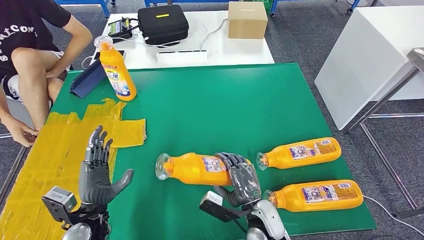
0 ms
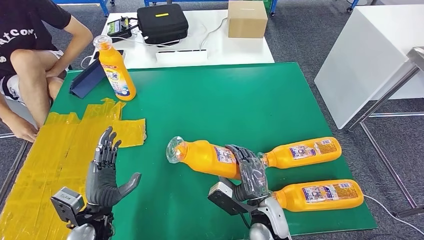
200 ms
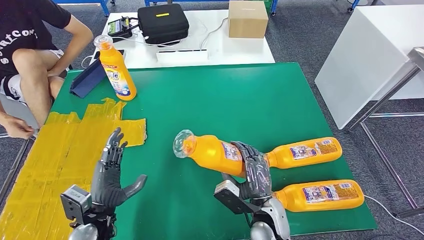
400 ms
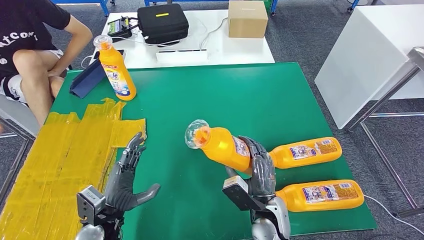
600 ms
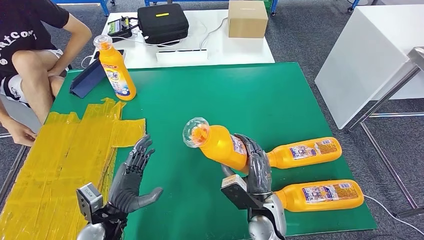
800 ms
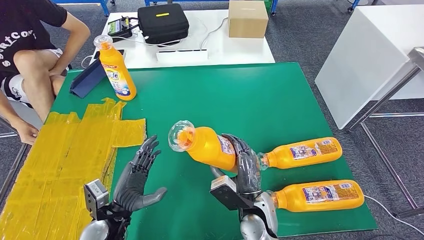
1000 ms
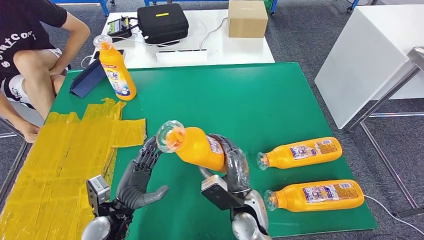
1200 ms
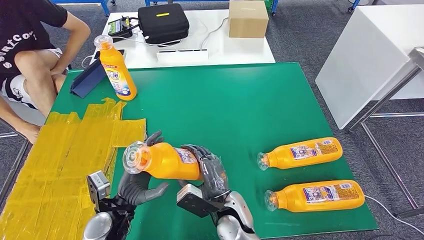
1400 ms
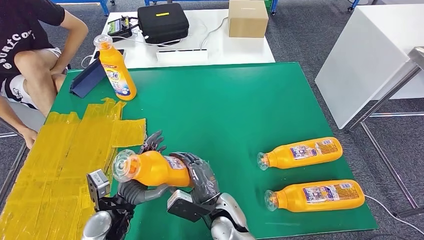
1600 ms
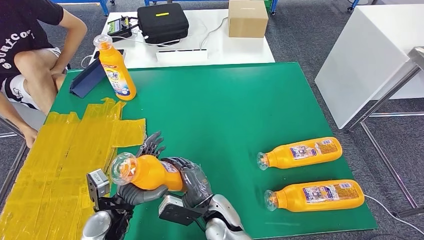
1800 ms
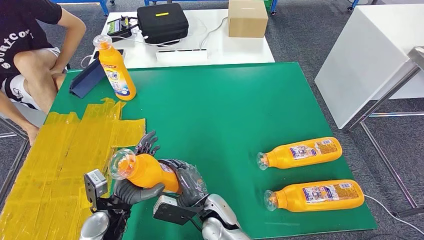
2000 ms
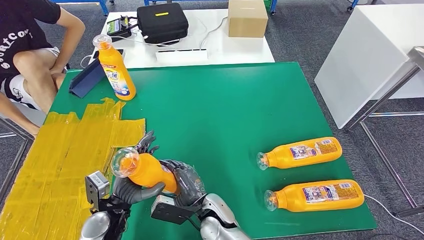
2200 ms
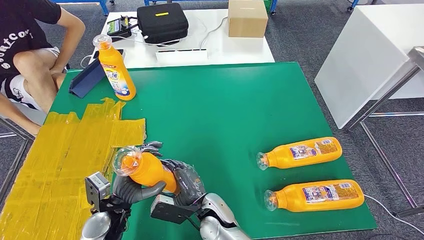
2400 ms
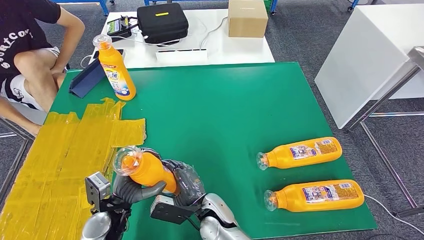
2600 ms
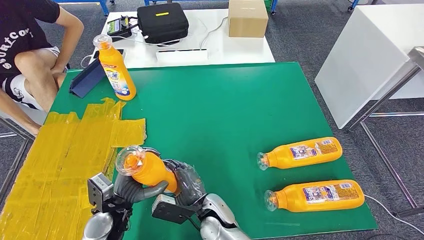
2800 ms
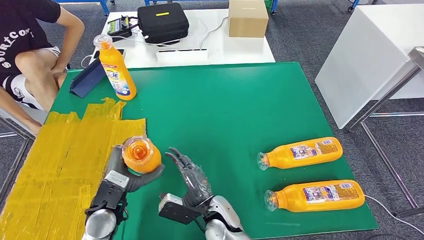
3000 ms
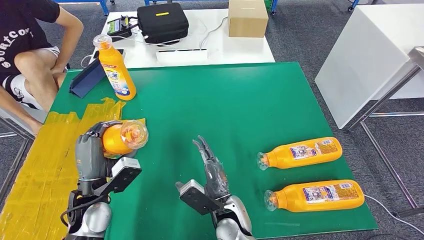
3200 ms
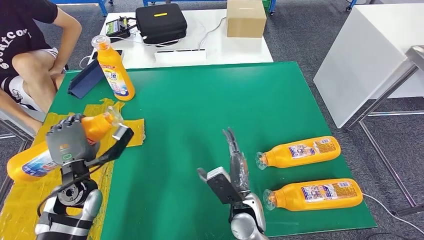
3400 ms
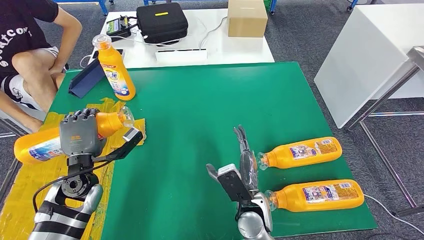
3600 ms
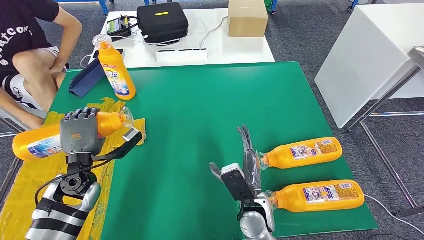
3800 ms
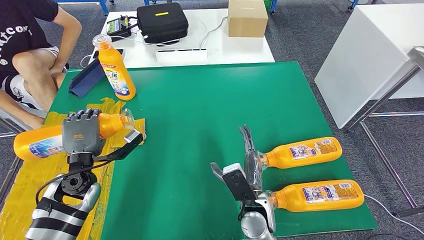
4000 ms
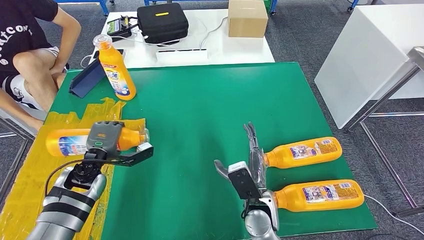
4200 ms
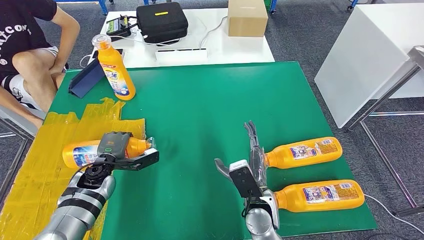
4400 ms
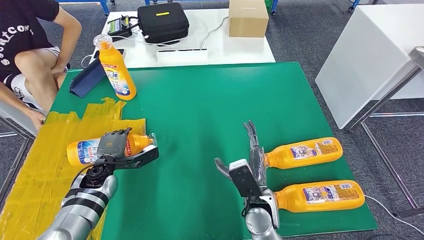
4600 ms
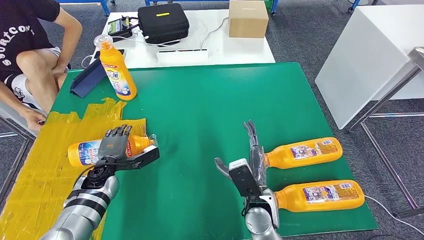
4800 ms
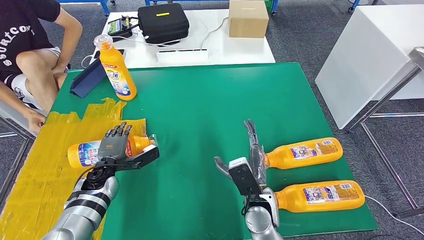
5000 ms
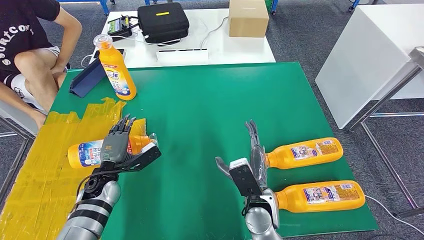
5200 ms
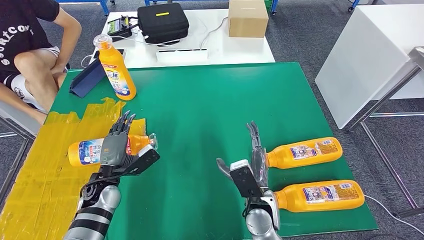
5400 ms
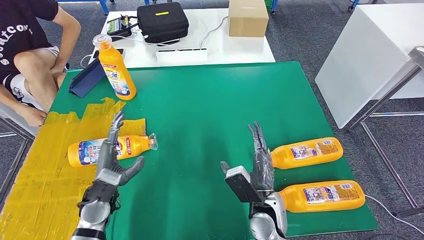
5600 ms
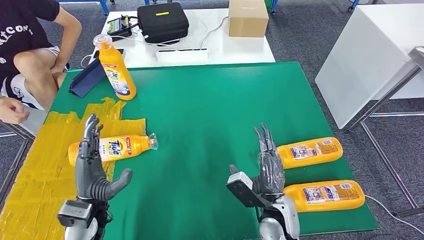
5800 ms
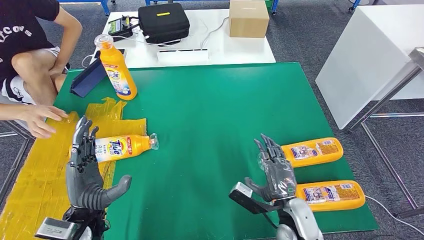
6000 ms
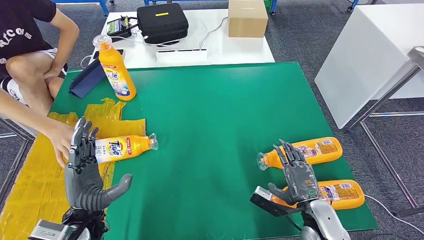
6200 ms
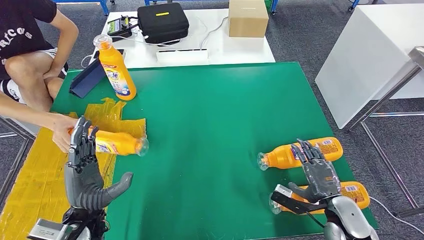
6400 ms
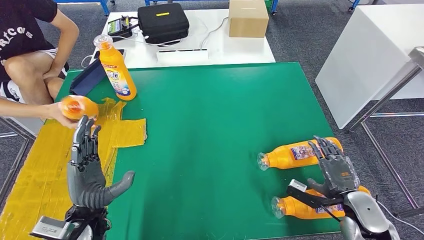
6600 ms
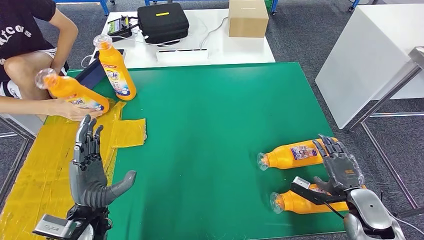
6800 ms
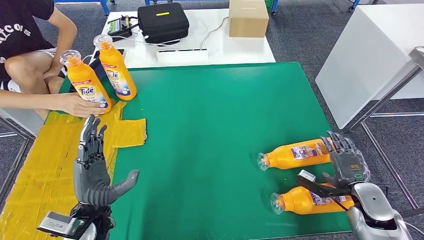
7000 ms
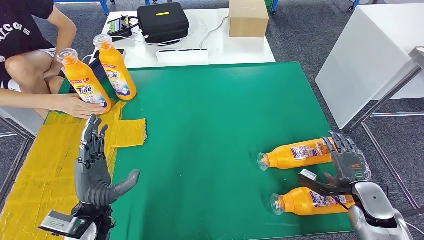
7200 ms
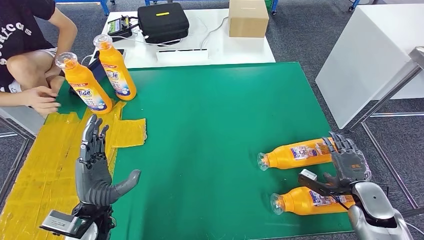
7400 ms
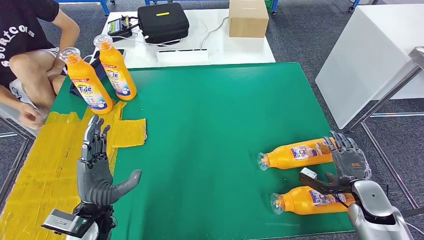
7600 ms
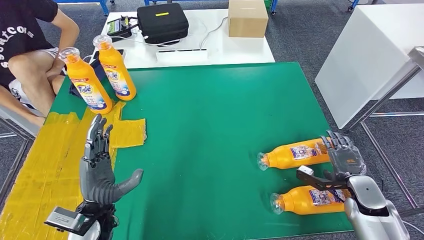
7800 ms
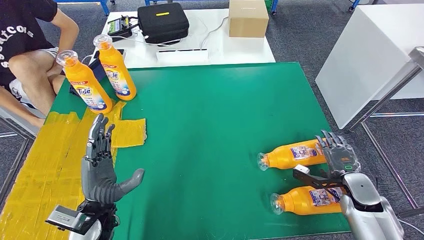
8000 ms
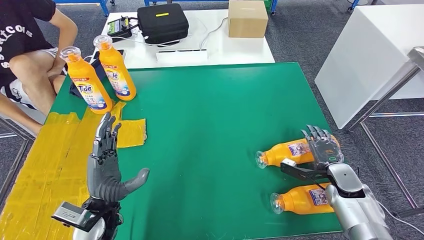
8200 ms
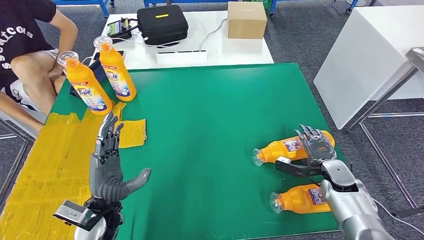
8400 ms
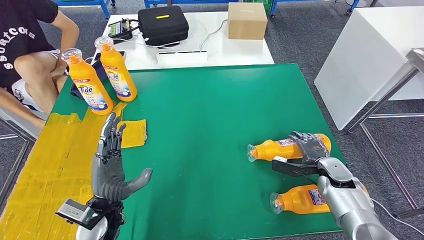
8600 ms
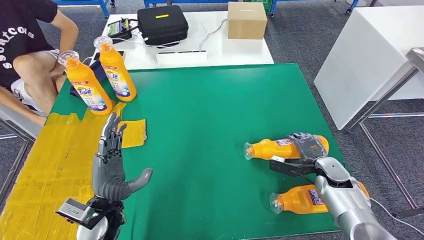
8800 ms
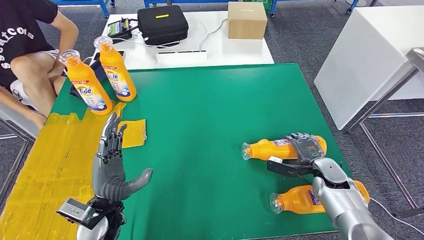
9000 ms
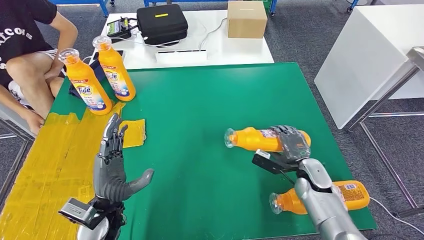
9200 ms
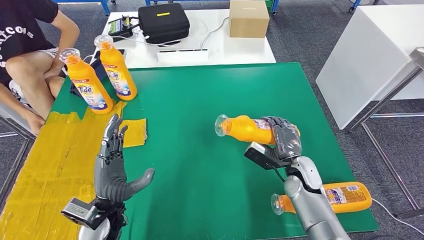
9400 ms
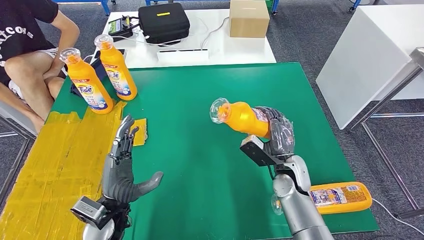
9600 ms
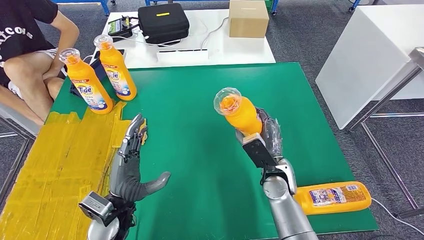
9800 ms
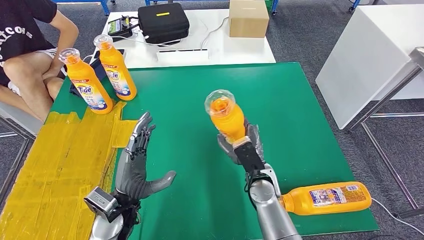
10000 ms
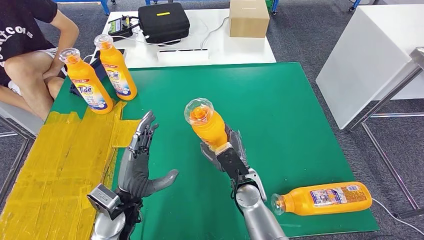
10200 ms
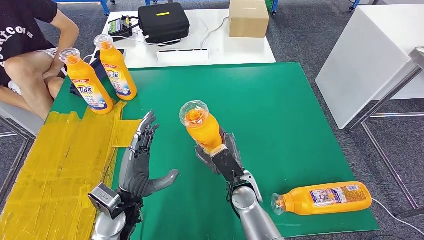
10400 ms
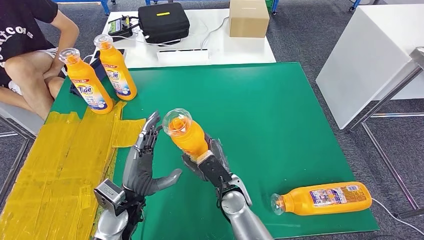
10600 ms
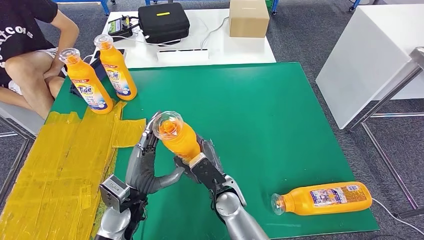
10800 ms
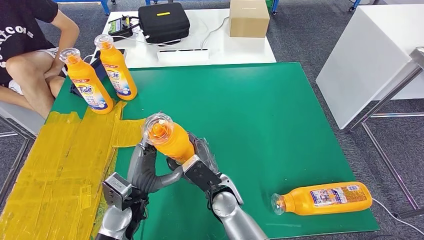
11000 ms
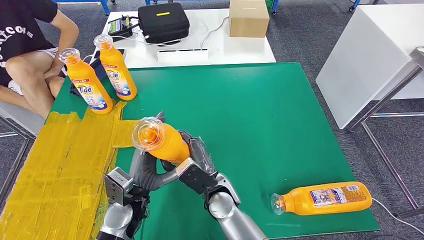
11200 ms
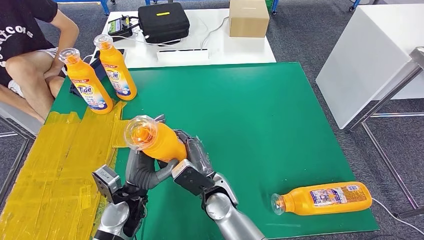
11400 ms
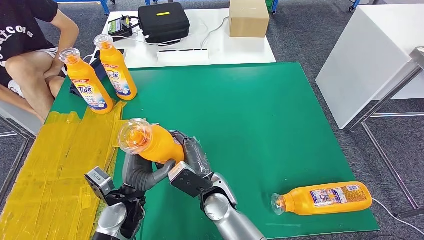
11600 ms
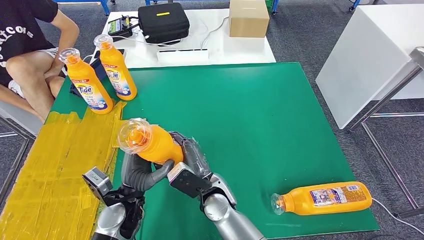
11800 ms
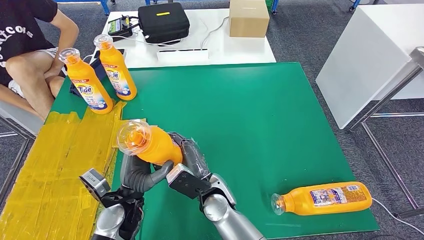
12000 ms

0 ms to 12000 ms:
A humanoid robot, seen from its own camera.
Step, 0 ms to 2400 ms: Pick up the fast-moving consumer goods bottle from the table.
Step, 2600 ms to 5800 ms: Flip the fast-moving consumer goods bottle to the front side.
Step, 8800 ms to 12000 ms: Pick up the fast-moving consumer goods bottle from the table.
3000 ms to 4400 ms: The left hand is displaced forward and to the left by some 15 cm. The right hand heads to the right, covering about 10 cm.
6000 ms to 7600 ms: The right hand shifts some 20 cm to the right.
10400 ms to 12000 ms: The right hand moves to the left, some 10 cm.

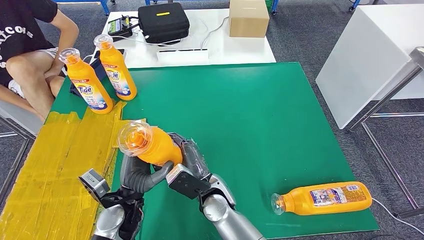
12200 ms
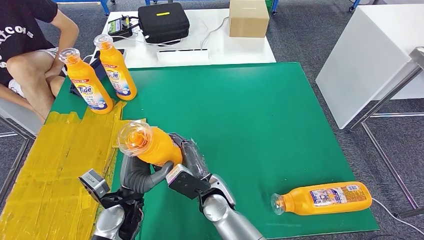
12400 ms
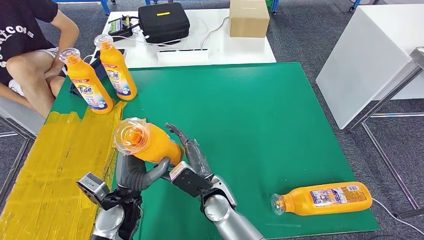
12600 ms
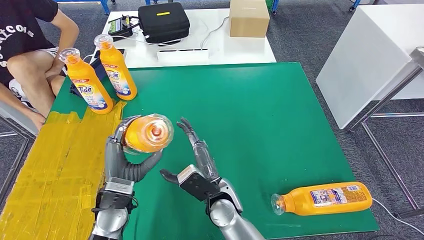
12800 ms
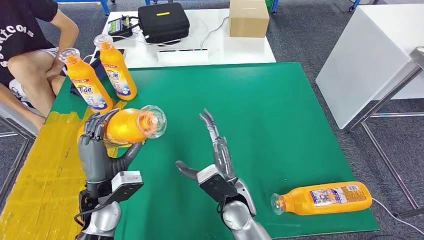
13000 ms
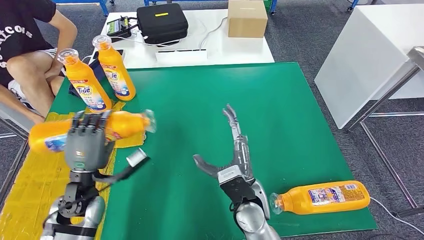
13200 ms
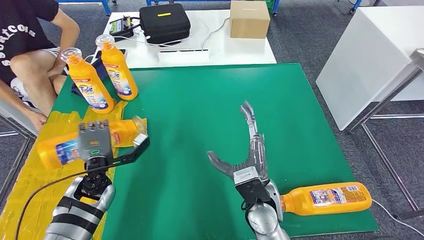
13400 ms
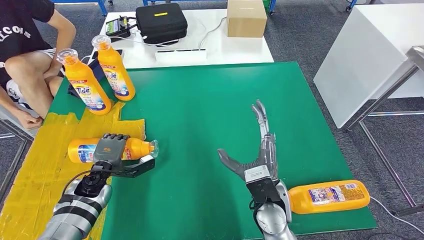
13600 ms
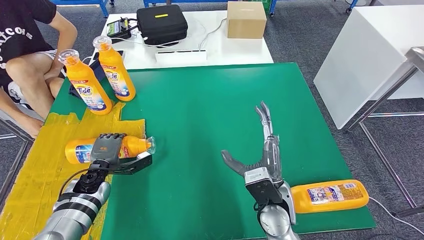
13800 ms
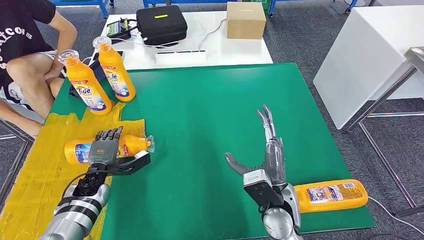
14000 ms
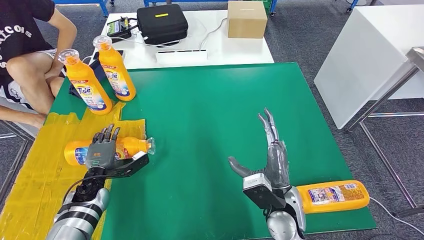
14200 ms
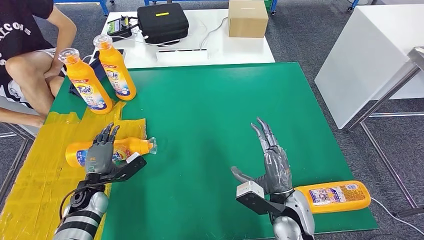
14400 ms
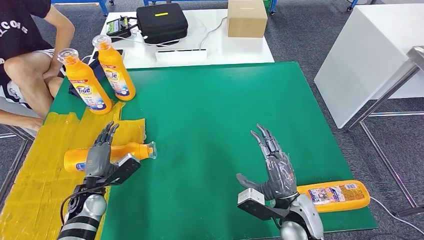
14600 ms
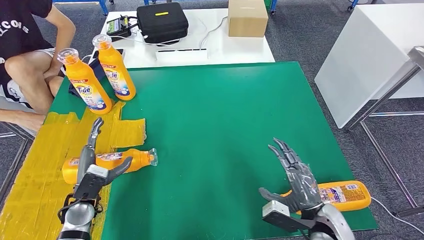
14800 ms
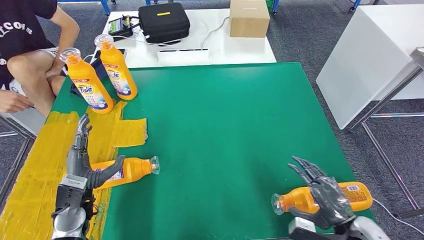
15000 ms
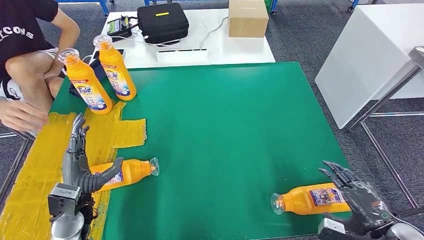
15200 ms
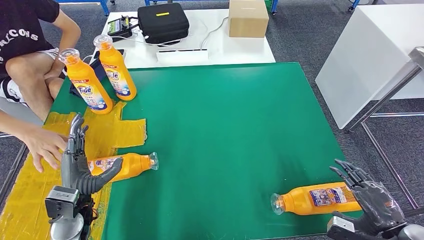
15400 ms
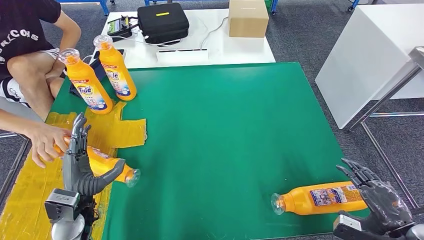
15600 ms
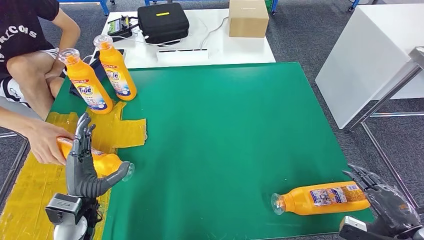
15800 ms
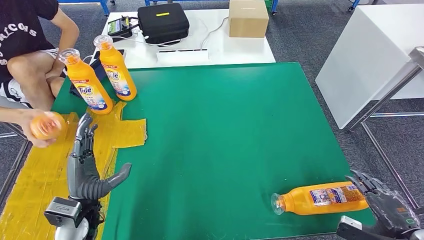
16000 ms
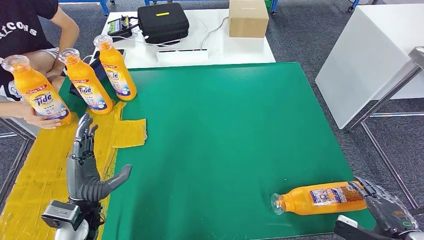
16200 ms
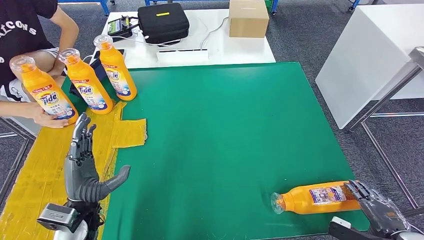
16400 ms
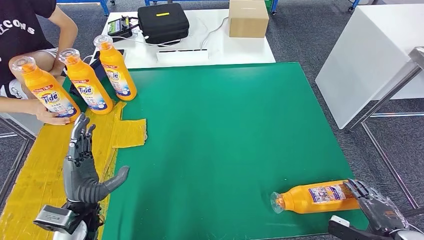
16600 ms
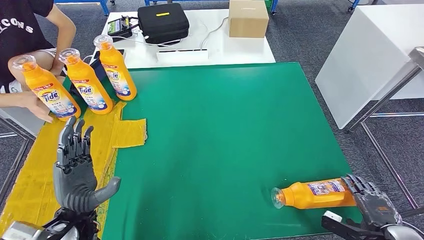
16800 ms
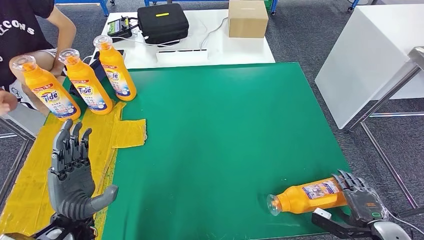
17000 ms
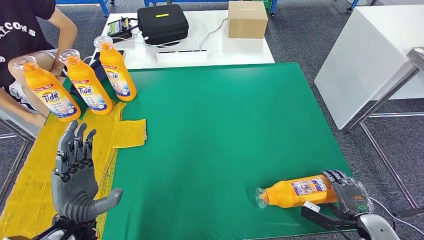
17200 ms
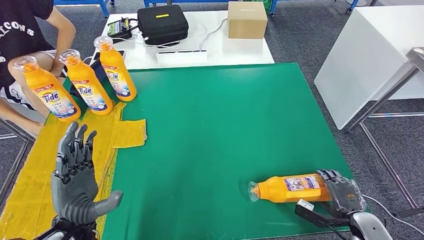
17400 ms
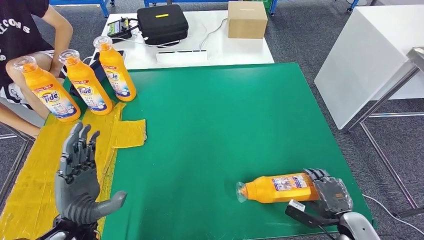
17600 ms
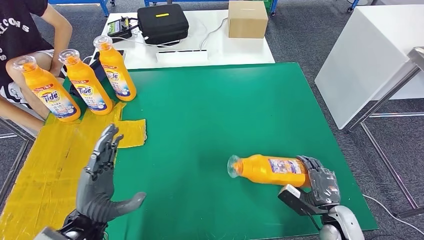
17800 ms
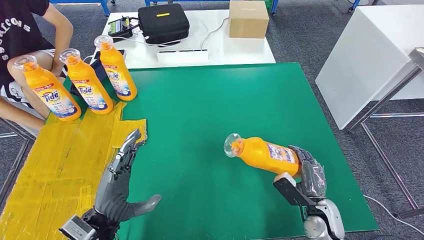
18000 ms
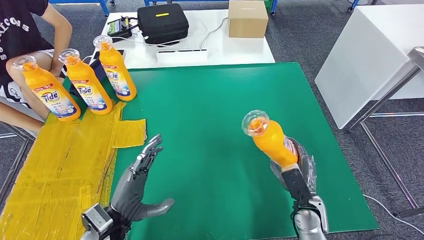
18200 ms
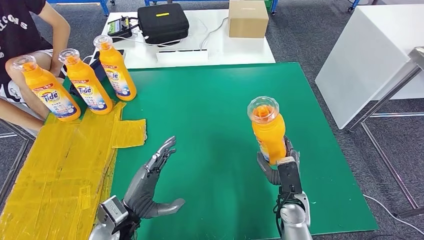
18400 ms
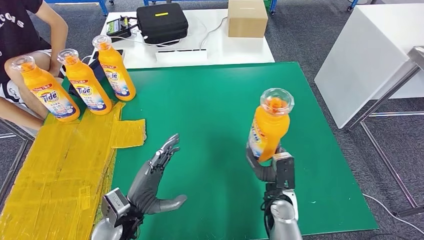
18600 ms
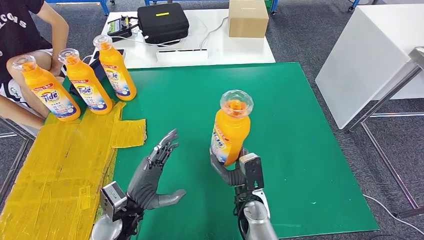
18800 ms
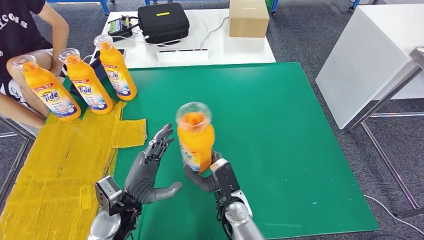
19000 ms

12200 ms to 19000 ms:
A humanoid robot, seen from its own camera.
Step, 12200 ms to 15600 ms: Flip the fast-moving consumer goods bottle to the front side.
15000 ms to 16200 ms: The left hand changes place by roughly 5 cm. The right hand is displaced to the right by approximately 10 cm.
16200 ms to 17600 ms: The right hand is displaced to the left, downward and forward by approximately 15 cm.
